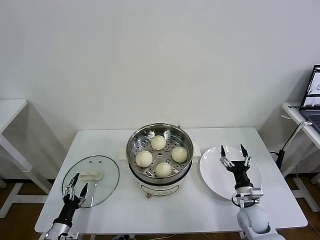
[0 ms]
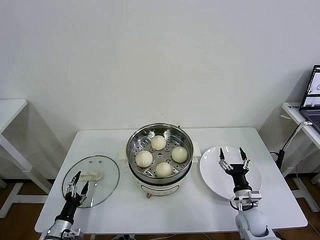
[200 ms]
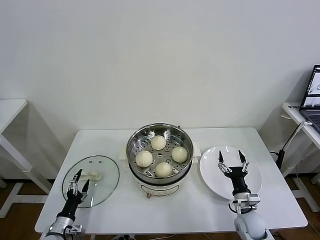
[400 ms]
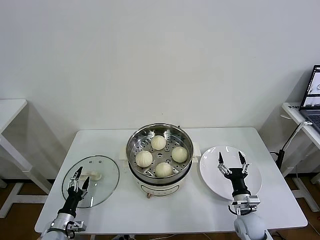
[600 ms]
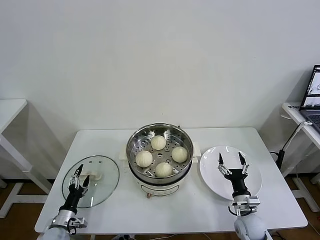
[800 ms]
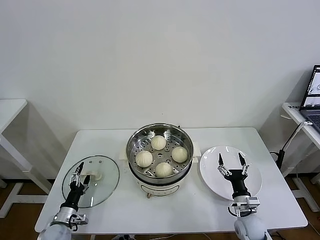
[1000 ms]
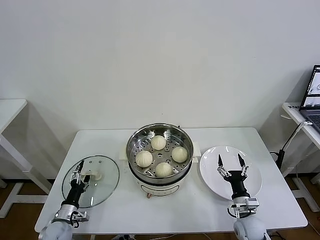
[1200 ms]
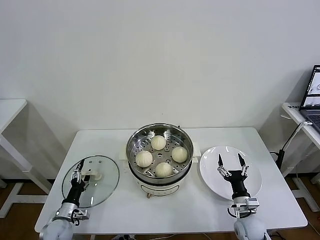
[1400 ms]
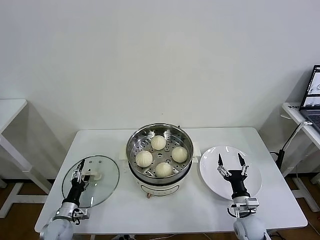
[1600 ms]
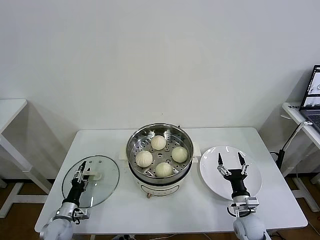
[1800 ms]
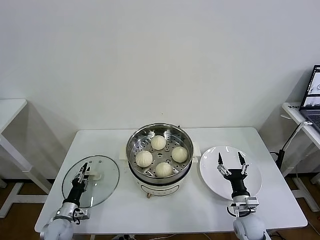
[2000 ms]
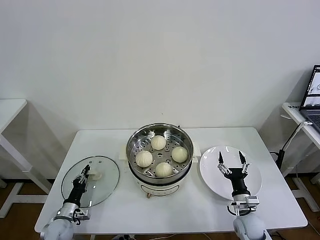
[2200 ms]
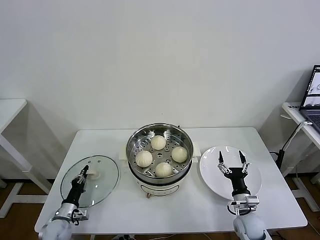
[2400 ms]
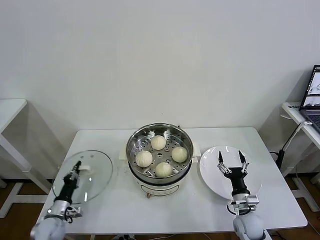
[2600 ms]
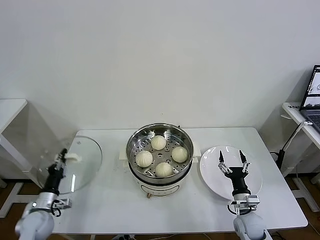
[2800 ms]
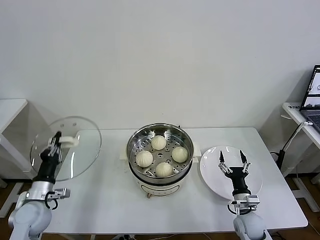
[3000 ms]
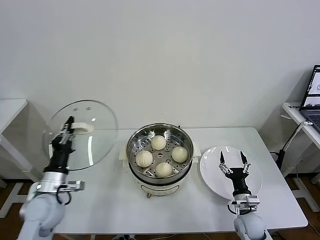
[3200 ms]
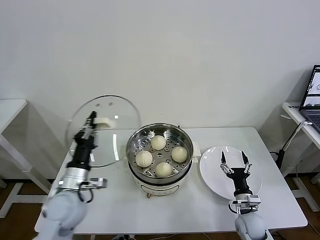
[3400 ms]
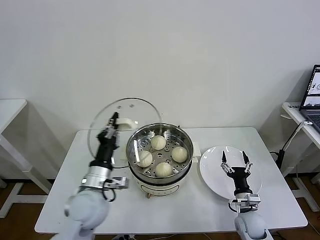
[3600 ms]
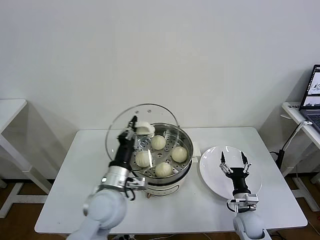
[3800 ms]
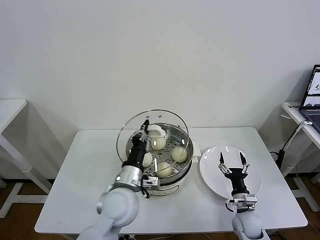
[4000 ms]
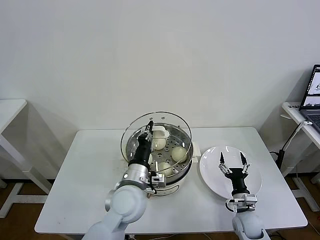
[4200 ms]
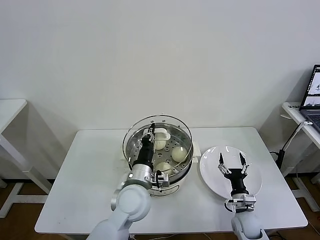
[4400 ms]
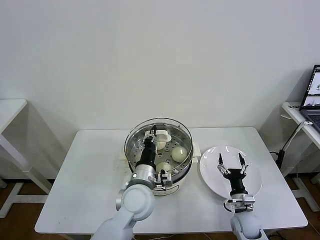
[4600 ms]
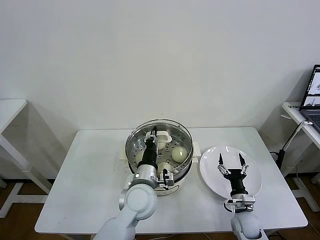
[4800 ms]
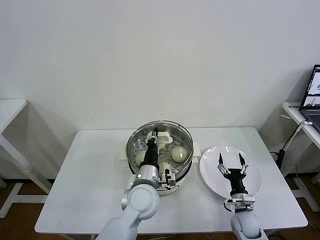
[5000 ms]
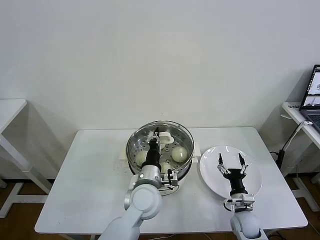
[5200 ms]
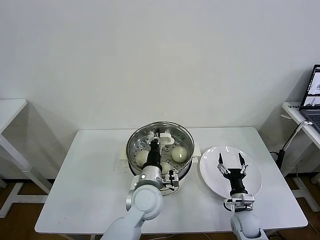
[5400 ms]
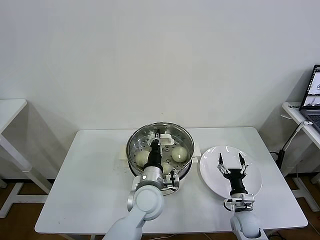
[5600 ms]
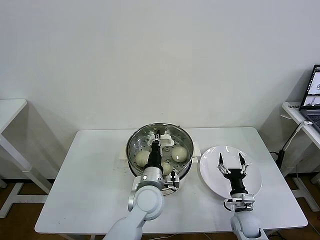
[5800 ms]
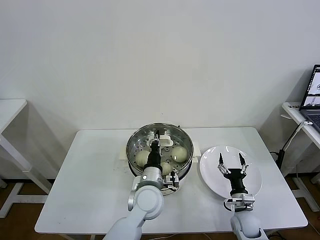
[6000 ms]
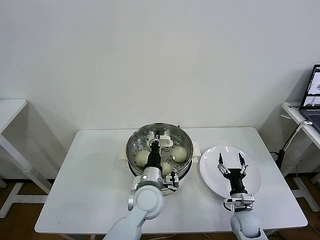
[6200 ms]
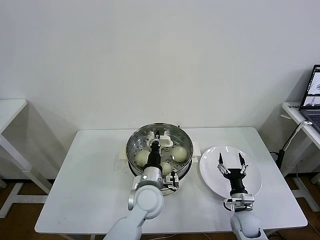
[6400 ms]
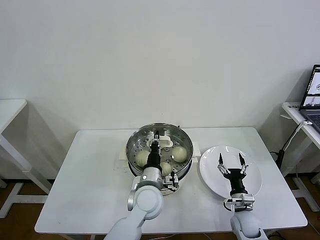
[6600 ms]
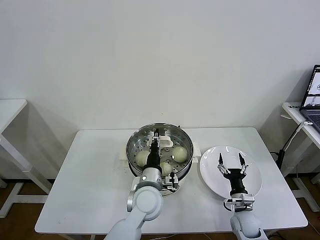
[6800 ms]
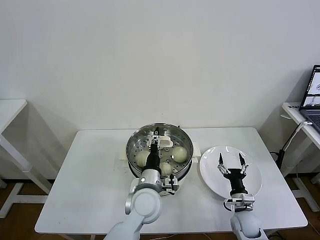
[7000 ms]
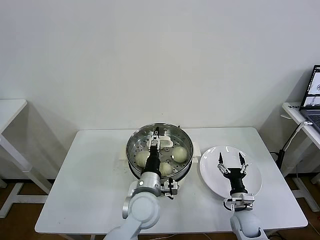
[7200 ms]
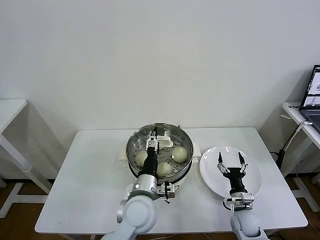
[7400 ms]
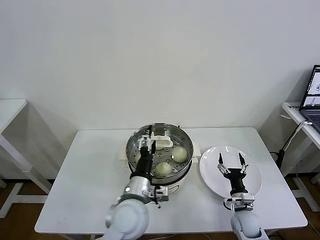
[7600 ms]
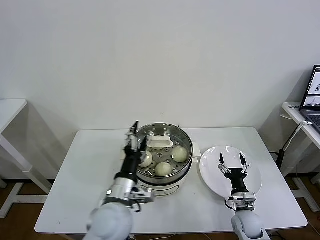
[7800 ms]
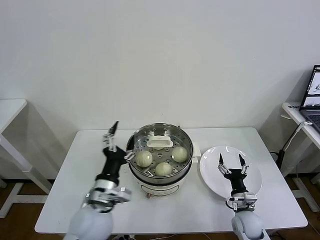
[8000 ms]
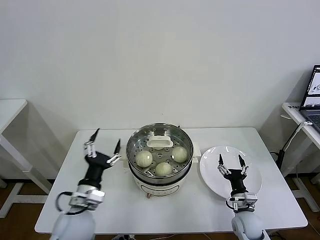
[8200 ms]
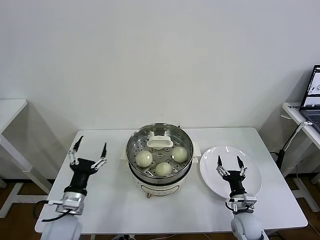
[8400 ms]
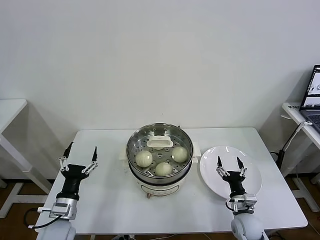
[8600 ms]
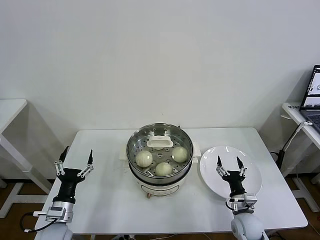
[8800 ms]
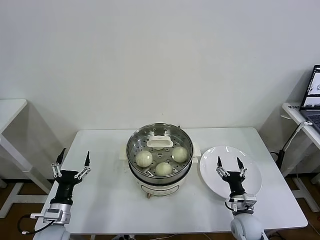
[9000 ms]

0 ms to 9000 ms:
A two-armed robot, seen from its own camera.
Task of the whole recording: take steamed baozi put them in steamer then cover it.
Step, 0 ms to 2200 ms: Grasp the pot lid with left gripper.
Step, 2600 ms to 6800 ms: Place the pot lid on the steamer with left gripper.
0 ms to 1600 ms: The left gripper travels forward by some 10 cm.
1600 ms to 3000 ms: The left gripper shifts some 15 cm upward, and closes.
3000 ms to 4400 ms: The left gripper moves to the right, about 30 cm.
4400 ms to 6000 ms: The left gripper moves about 5 cm.
6000 ms to 7600 ms: The left gripper goes approximately 5 cm backward, and opens up.
7600 ms to 9000 ms: The left gripper is displaced to the left and downward by roughly 30 cm.
